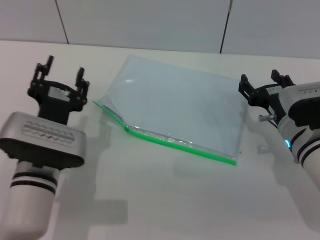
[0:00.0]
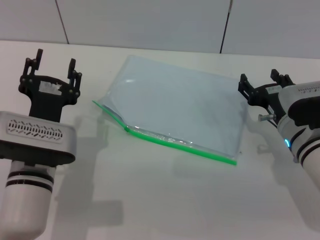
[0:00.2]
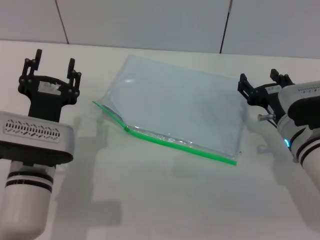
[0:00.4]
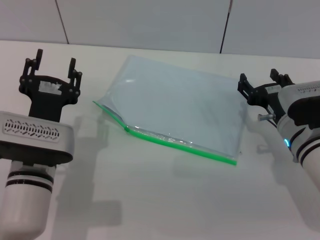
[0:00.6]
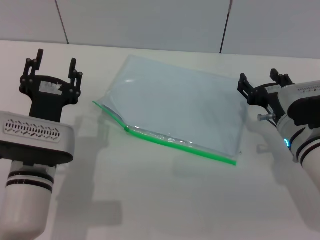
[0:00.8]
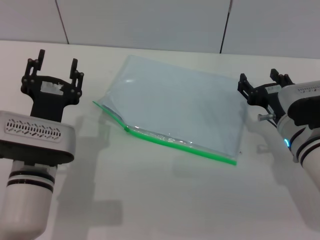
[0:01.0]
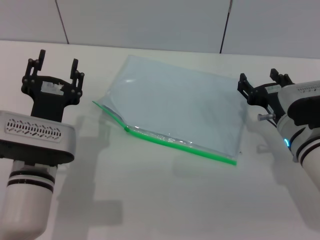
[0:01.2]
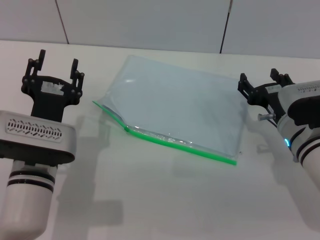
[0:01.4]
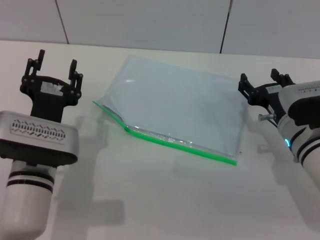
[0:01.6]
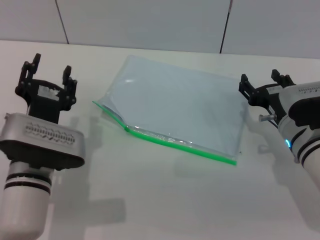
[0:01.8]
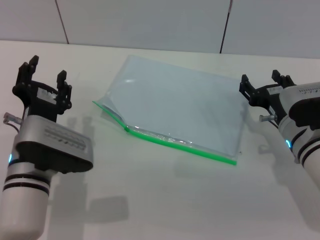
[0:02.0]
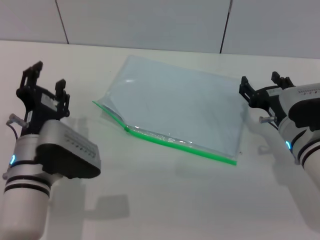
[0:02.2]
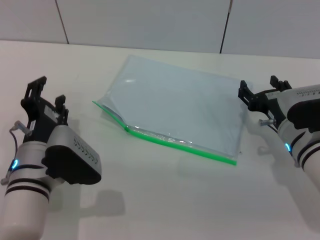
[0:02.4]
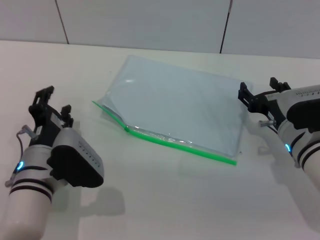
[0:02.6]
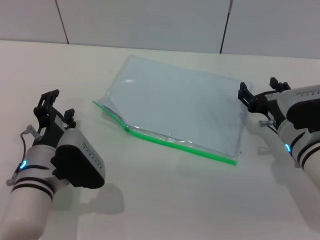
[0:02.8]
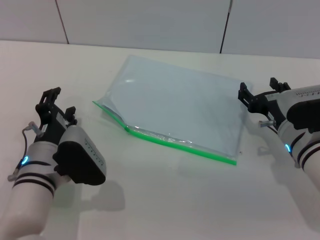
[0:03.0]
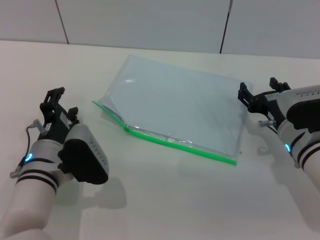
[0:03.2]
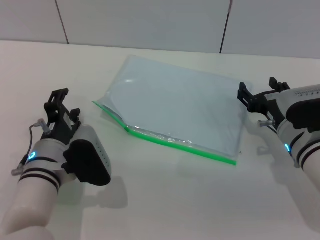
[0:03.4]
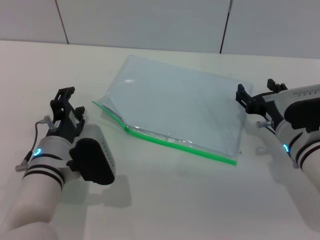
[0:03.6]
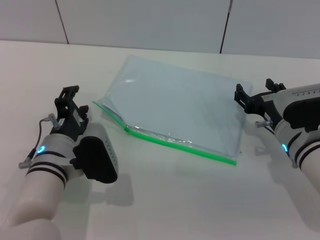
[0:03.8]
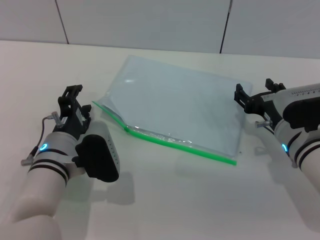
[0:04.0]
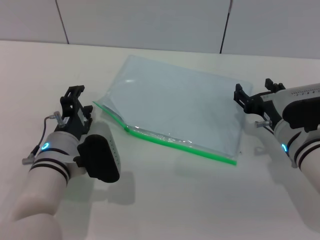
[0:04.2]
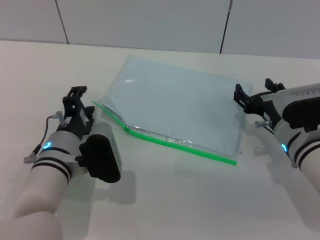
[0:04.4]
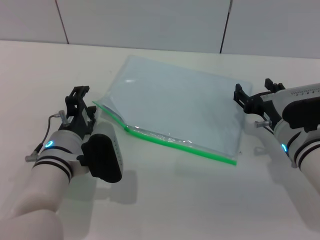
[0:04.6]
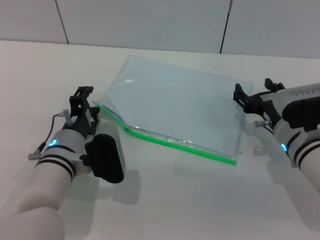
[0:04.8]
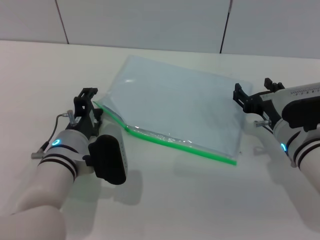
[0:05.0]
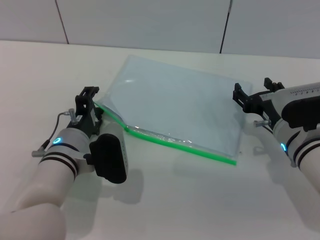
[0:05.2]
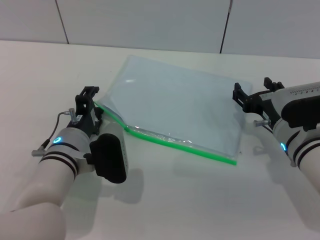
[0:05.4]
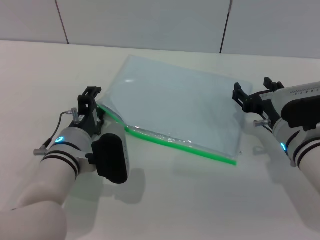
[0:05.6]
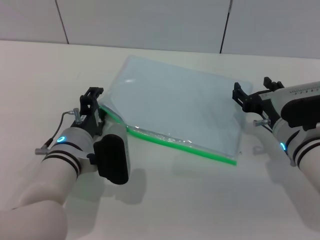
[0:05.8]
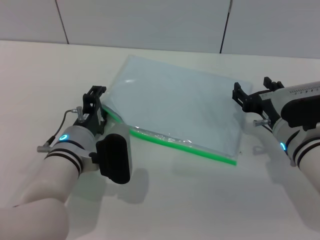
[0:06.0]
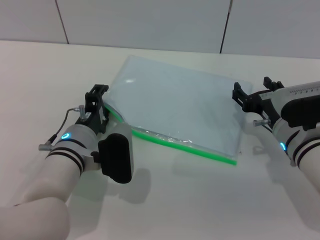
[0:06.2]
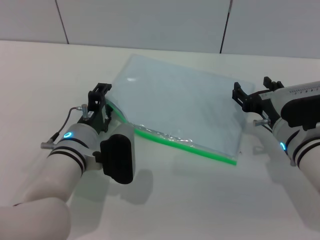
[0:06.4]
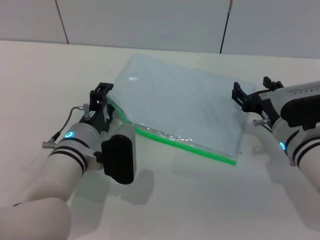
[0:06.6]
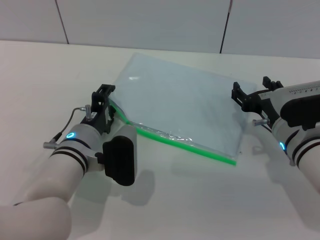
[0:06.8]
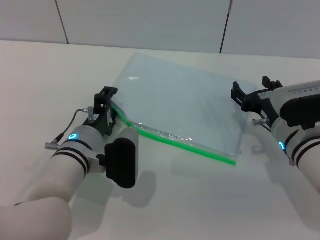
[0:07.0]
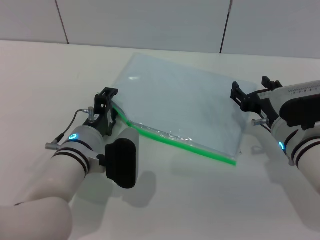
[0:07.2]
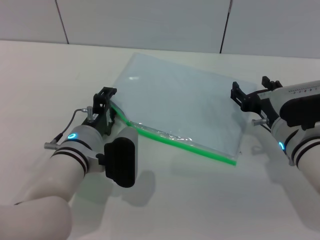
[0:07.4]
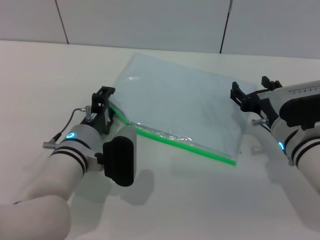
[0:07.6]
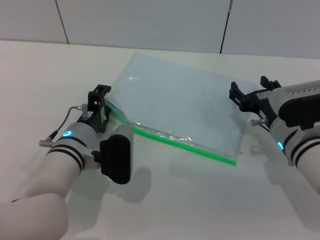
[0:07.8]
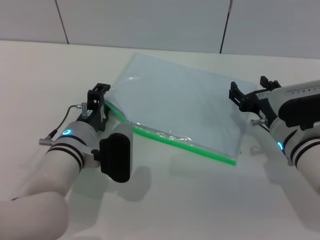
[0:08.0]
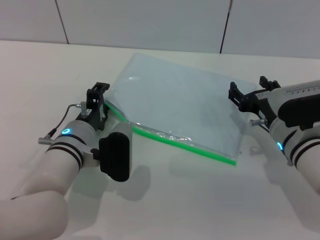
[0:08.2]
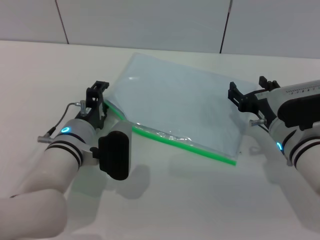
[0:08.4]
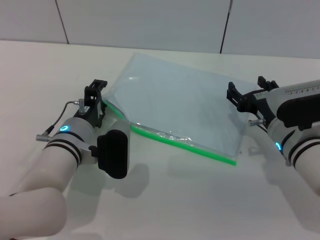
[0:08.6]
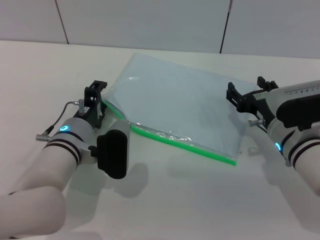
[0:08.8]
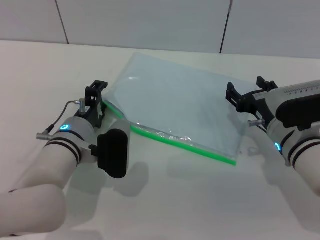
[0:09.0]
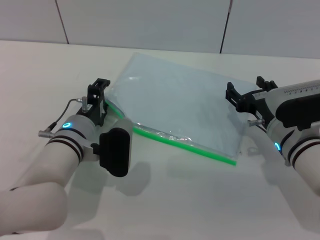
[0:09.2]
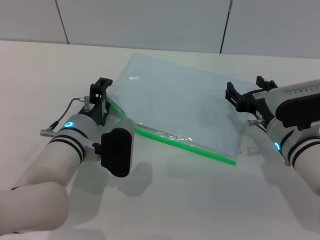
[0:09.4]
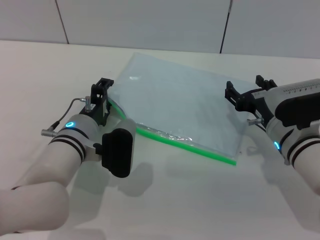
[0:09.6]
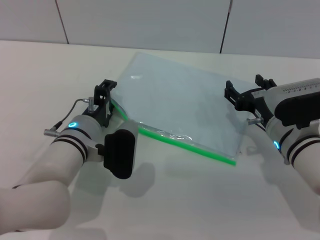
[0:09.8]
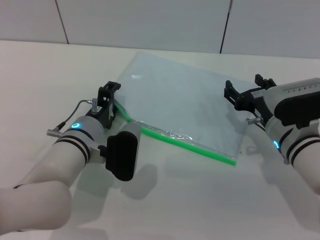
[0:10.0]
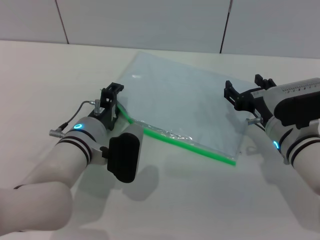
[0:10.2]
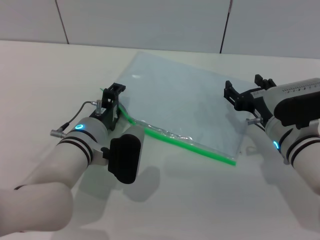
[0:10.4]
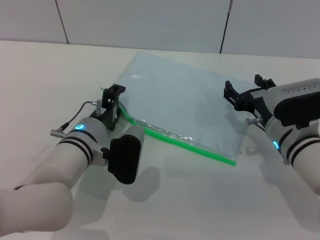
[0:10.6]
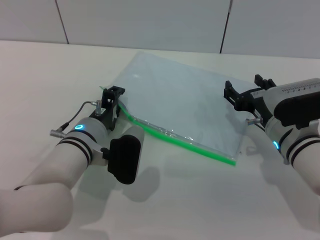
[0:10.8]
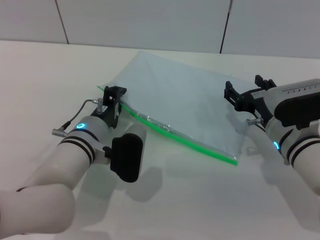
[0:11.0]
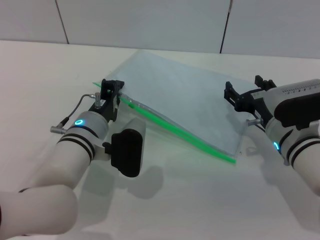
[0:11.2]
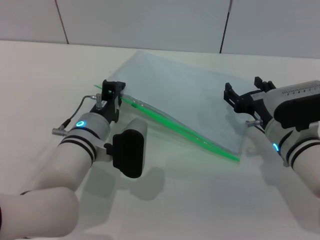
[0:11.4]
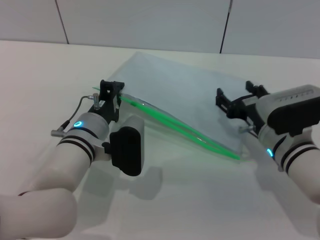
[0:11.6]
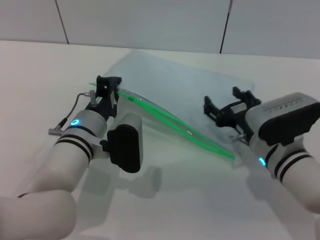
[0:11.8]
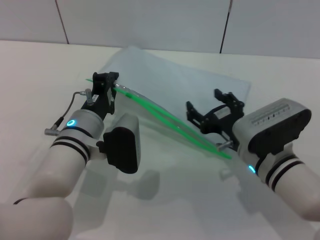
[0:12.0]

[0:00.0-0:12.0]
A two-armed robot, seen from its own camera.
0:00.0 to 0:01.6: The grippers stay close to where they were, moving slightly.
0:03.0 to 0:04.4: The grippers stay close to where they were, moving slightly.
0:04.4 to 0:09.0: There are only small adjustments of the grippers.
0:09.0 to 0:10.4: The grippers move only a little.
0:10.4 to 0:12.0: The left gripper closes its fingers; the right gripper changes place by about 5 cm.

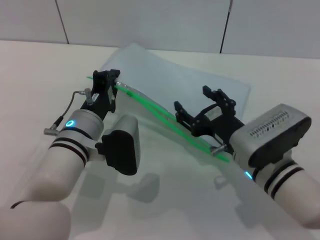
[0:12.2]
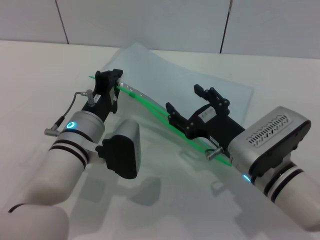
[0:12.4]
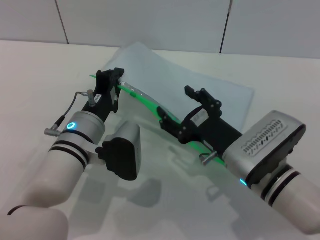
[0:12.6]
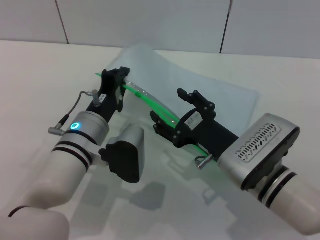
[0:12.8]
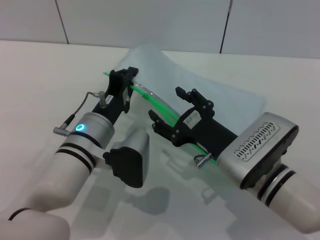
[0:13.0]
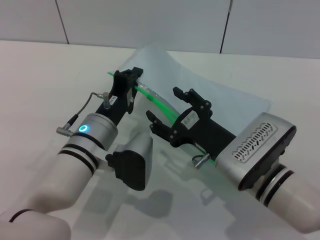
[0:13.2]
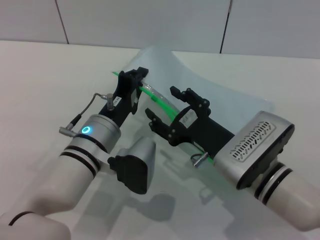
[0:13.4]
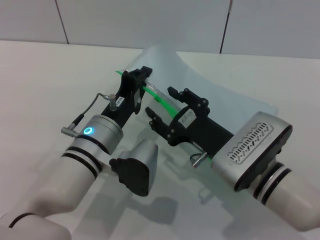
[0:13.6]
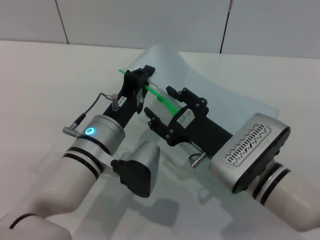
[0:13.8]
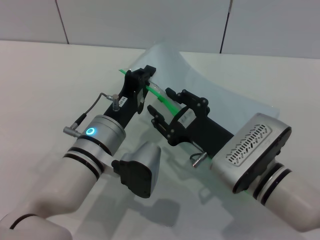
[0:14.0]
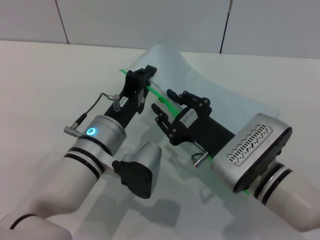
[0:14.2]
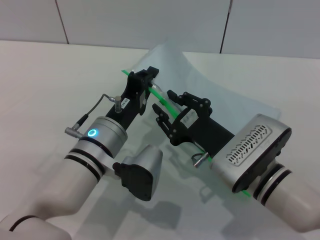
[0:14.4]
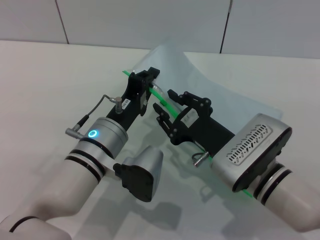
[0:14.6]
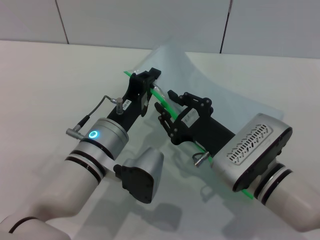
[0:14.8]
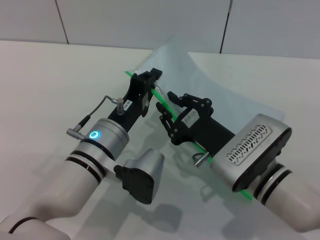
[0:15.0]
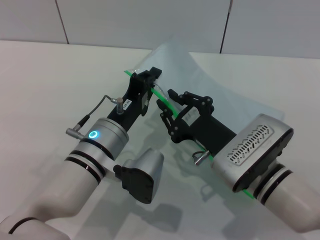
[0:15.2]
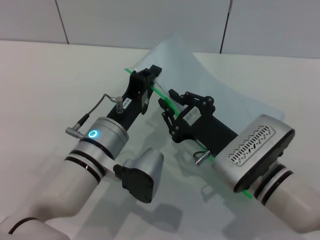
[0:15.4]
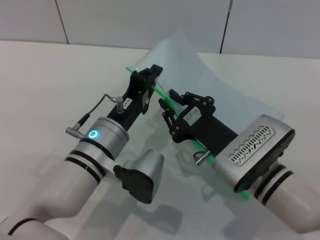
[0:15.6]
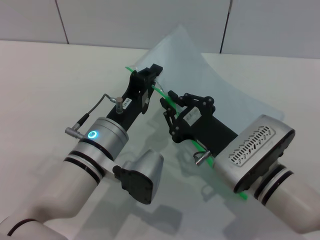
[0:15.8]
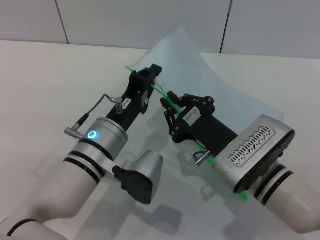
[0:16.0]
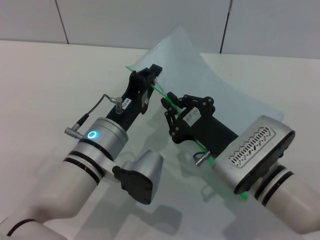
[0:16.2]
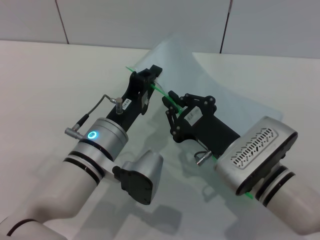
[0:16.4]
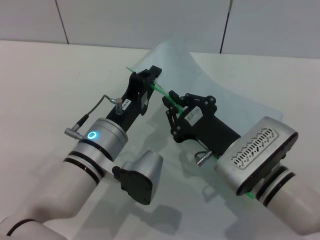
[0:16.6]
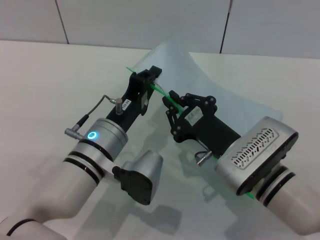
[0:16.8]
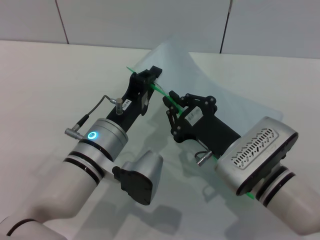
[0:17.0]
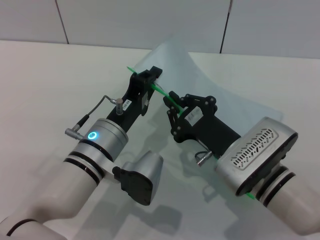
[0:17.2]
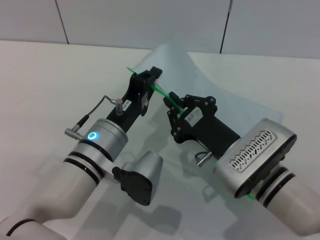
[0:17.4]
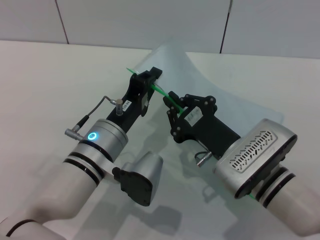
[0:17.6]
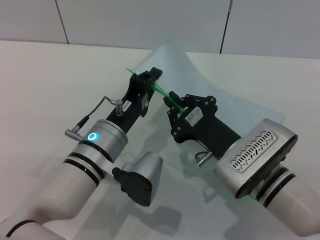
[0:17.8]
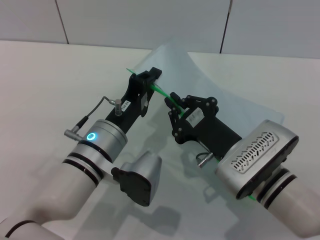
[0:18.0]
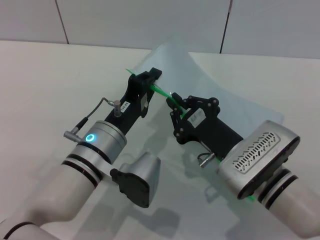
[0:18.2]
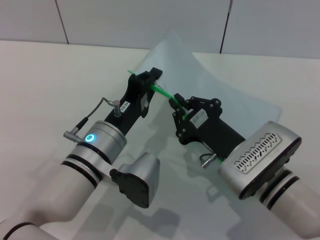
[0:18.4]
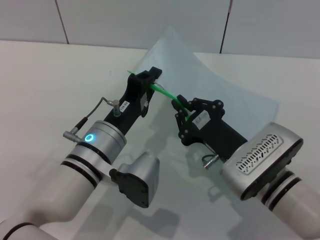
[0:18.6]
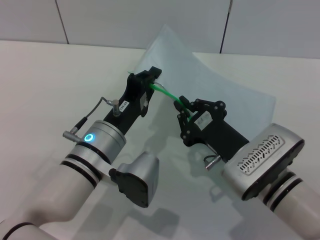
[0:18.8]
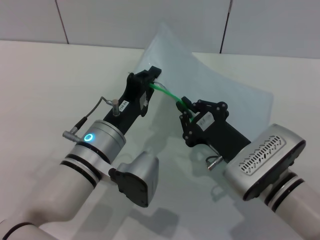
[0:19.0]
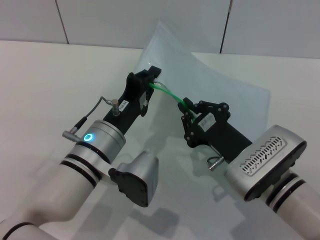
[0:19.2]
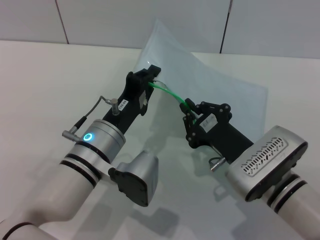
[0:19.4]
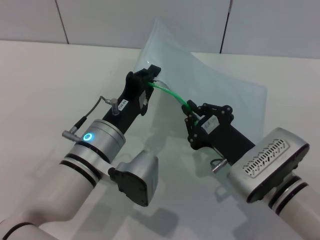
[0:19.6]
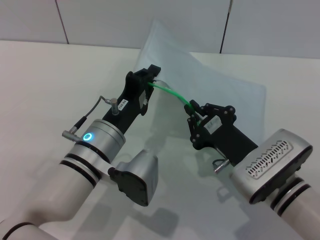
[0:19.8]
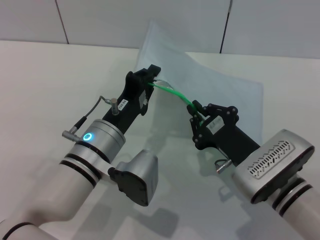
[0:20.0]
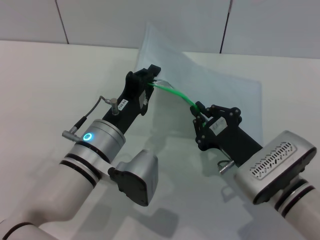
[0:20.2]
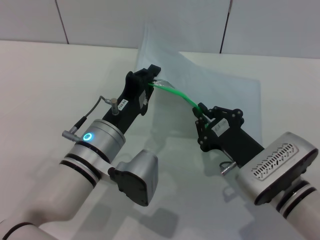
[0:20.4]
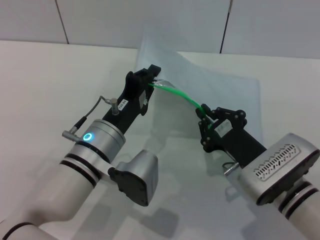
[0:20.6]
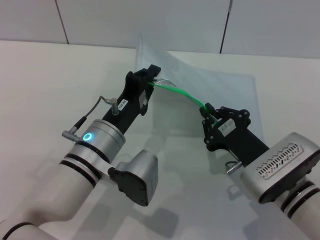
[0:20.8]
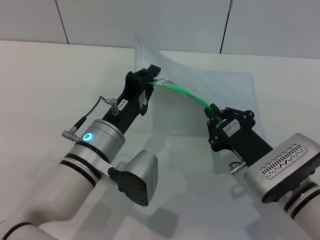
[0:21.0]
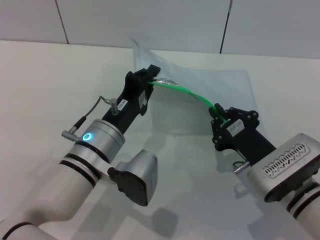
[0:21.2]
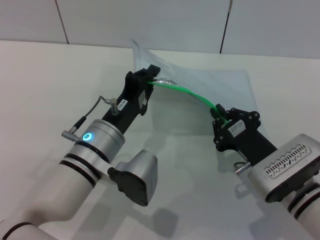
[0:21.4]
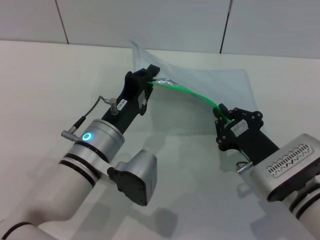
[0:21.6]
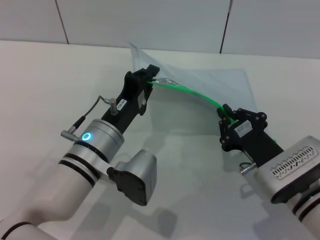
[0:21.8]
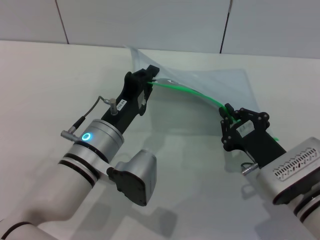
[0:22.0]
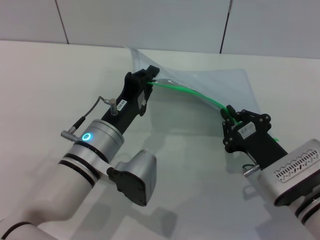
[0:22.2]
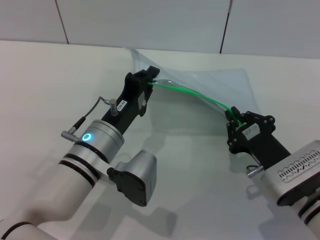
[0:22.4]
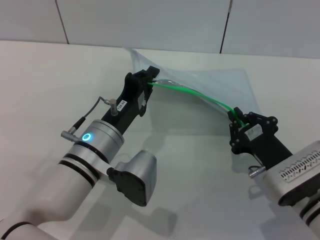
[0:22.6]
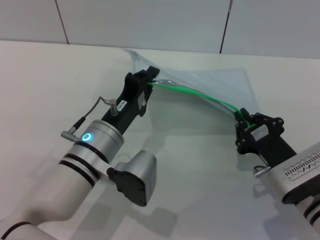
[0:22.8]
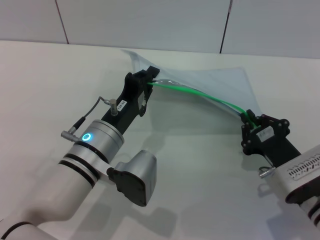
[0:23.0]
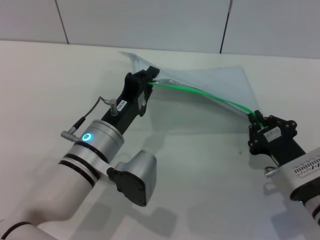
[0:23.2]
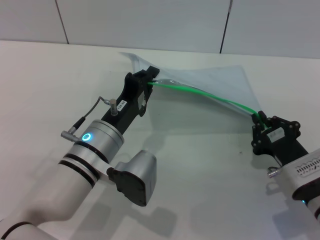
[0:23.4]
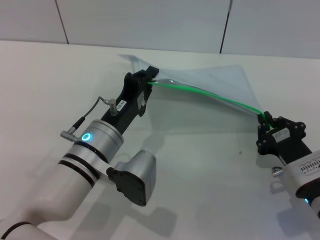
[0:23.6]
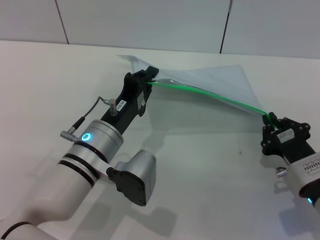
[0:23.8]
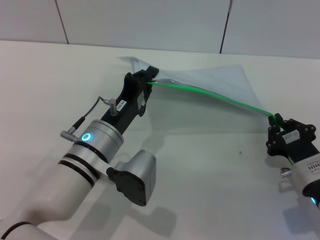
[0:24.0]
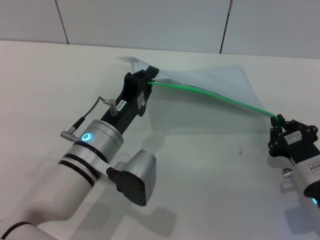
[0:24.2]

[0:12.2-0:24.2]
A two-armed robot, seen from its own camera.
0:13.8 to 0:15.2: The right gripper closes its fingers.
0:15.2 to 0:18.2: Neither gripper changes place.
0:18.2 to 0:21.2: There are only small adjustments of the grippers.
0:21.2 to 0:22.6: The grippers make only small movements.
0:22.6 to 0:24.2: The right gripper shifts by approximately 5 cm.
